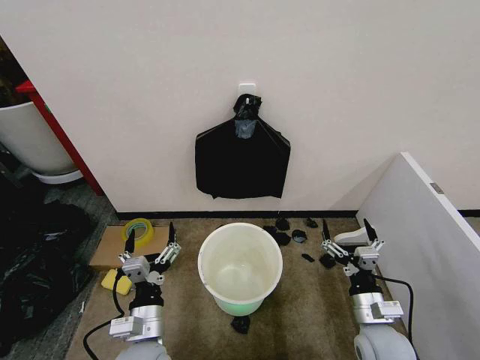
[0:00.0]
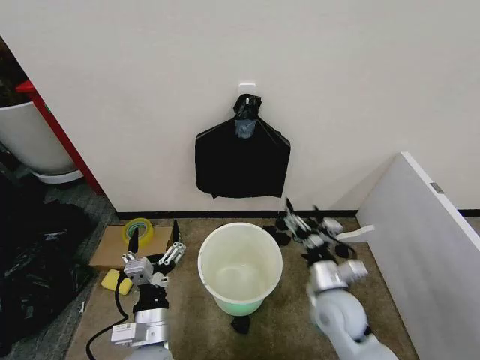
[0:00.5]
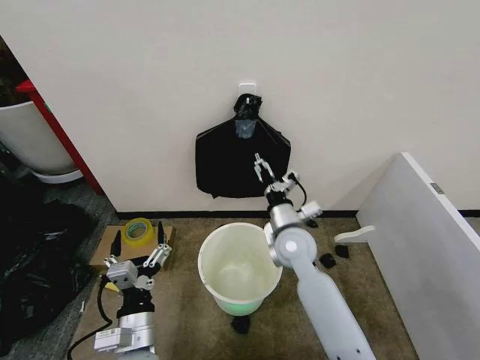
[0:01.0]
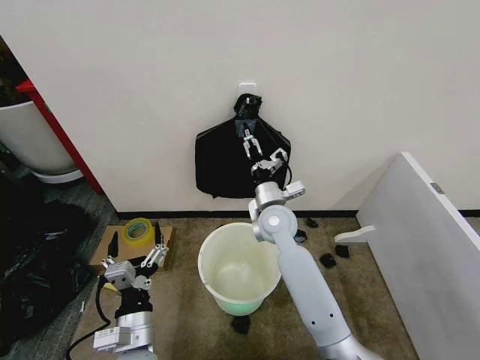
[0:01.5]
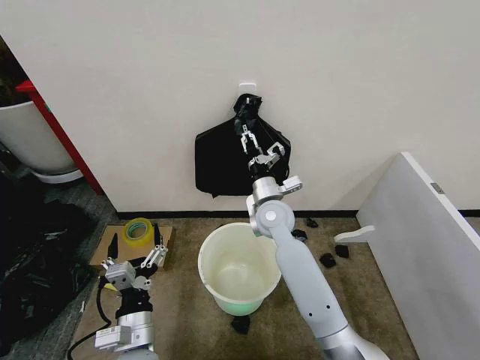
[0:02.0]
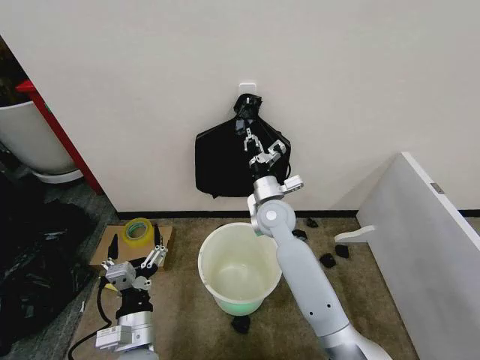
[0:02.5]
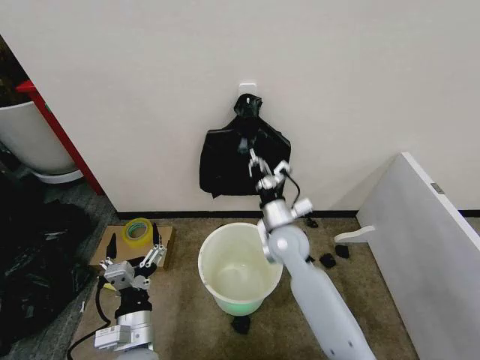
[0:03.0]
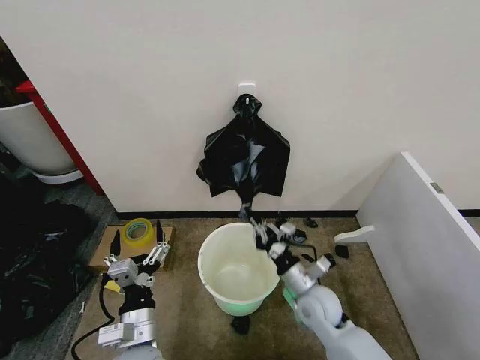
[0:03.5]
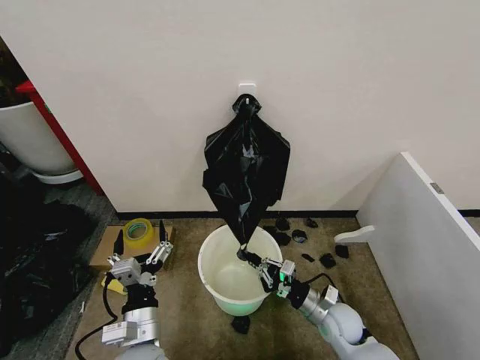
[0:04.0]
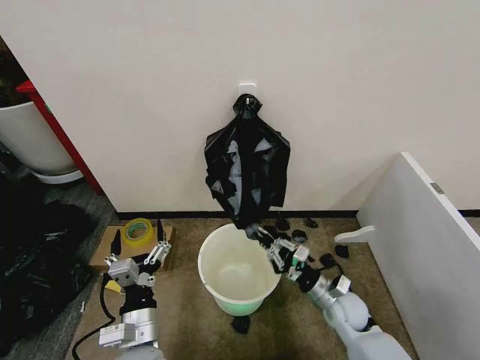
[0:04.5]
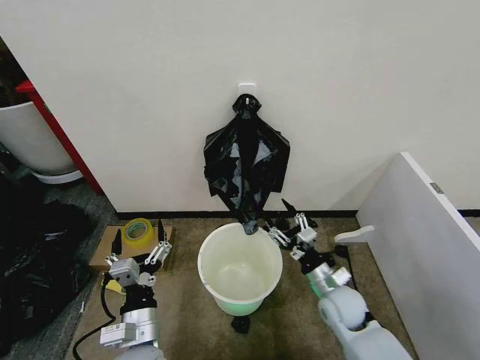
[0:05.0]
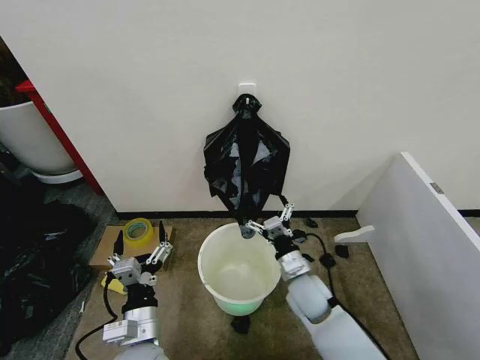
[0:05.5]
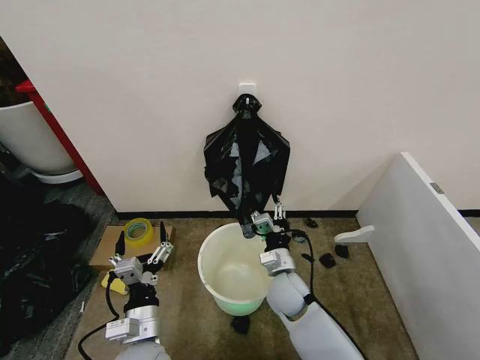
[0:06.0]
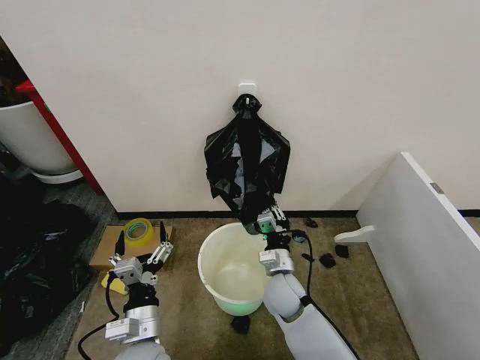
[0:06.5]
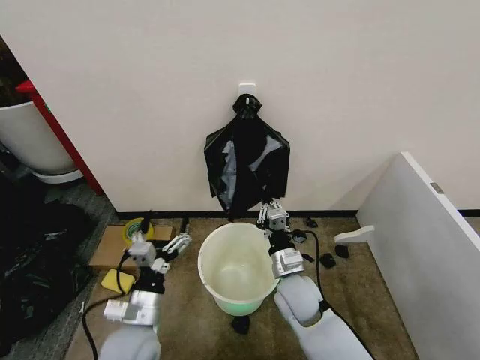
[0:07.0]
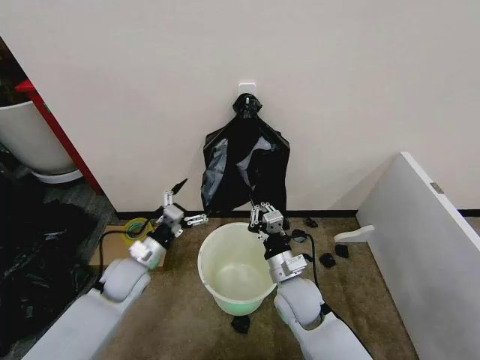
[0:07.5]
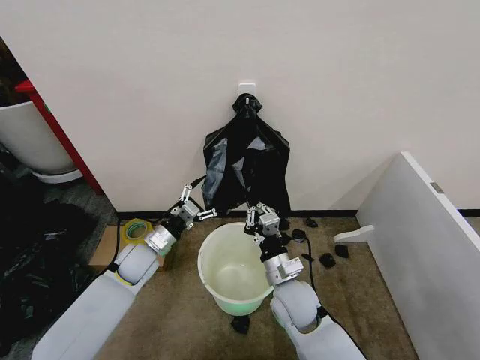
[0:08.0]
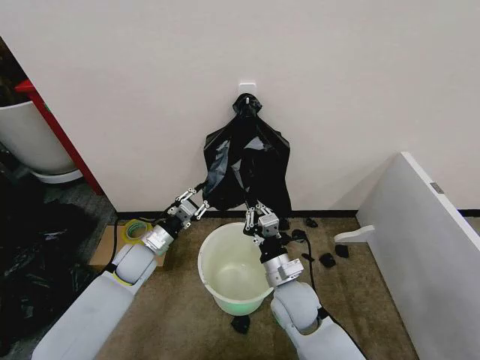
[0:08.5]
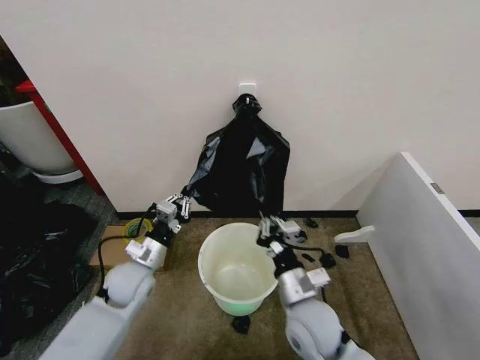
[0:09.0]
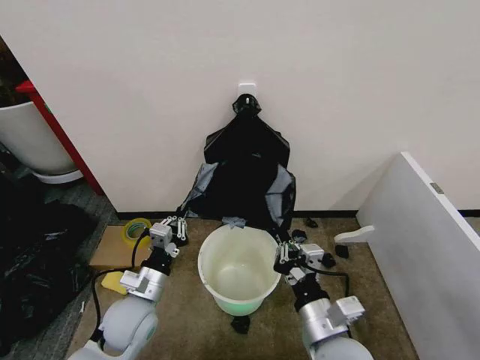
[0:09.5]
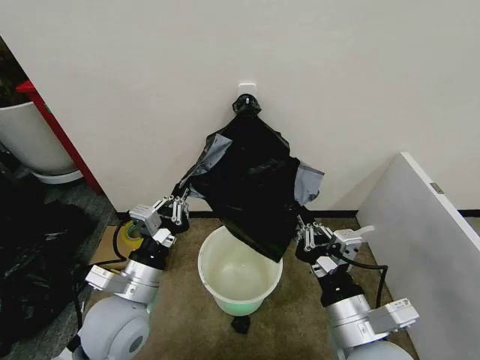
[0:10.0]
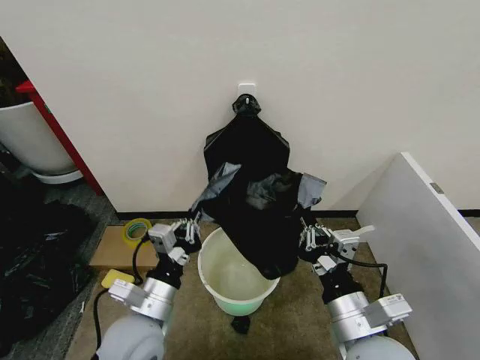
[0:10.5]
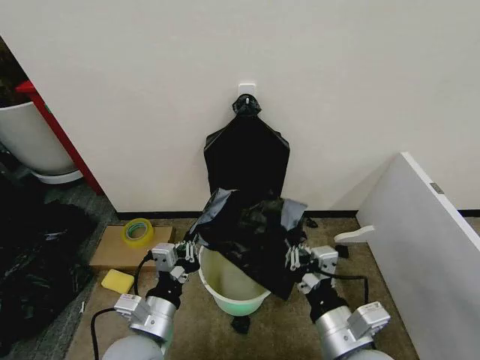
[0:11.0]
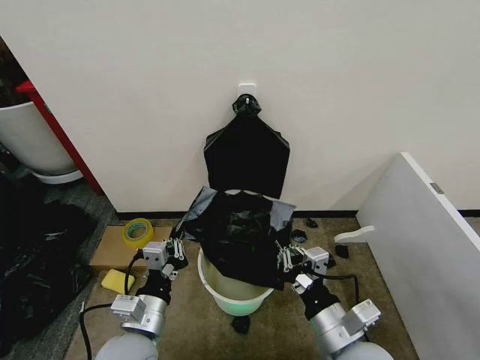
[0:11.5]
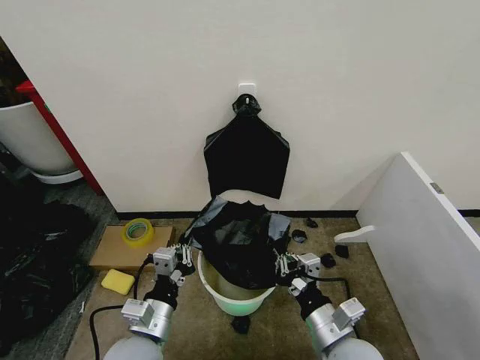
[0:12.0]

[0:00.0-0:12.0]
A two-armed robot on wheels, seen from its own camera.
Task of the whole recording: Place the garbage bag over the trash bin.
0:02.0 to 0:04.0: The right gripper shifts roughly 30 cm downward, backward and to the right, and closes.
0:04.0 to 0:06.0: The right gripper is displaced to the left, upward and forward by about 15 cm, and opens up.
0:06.0 to 0:08.0: The left gripper is displaced forward by approximately 20 cm; the right gripper ends up some 5 cm from where it was, and closes its fingers.
0:08.0 to 0:10.0: The right gripper shifts some 20 cm backward, upward and to the right. Meanwhile the left gripper is displaced backward and upward by about 20 cm, and closes its fingers.
0:10.0 to 0:12.0: Both grippers travel together downward, some 10 cm.

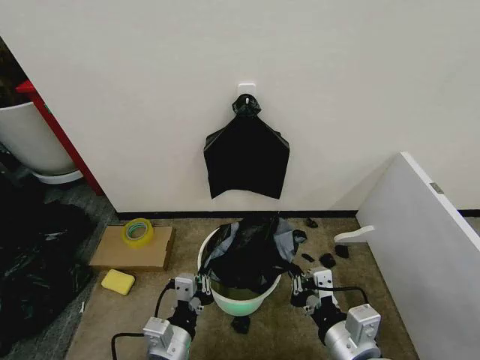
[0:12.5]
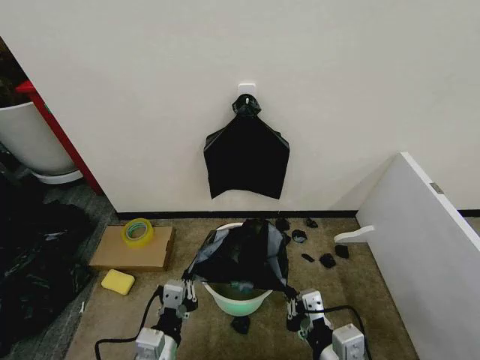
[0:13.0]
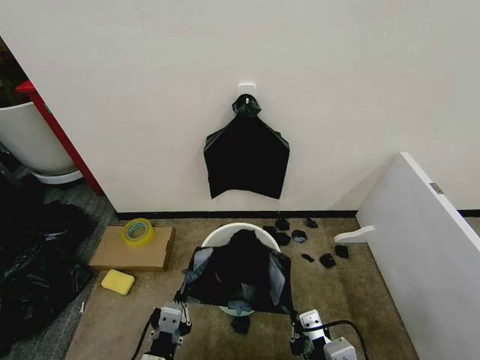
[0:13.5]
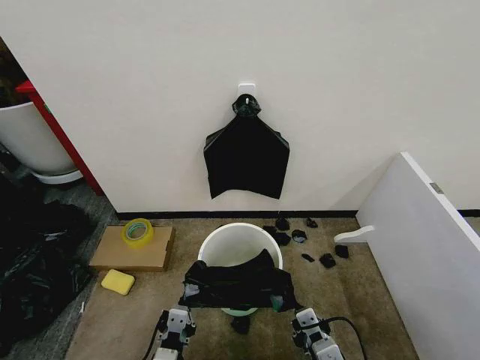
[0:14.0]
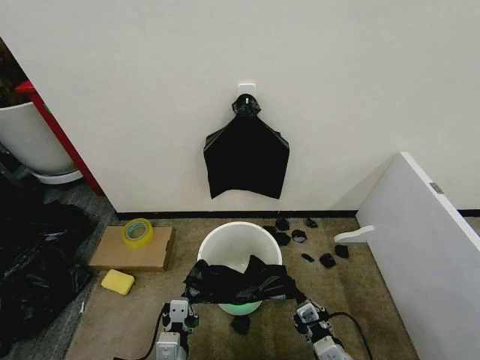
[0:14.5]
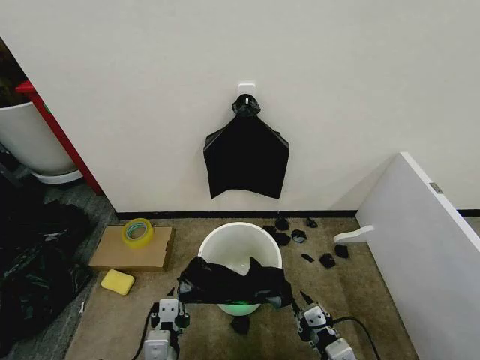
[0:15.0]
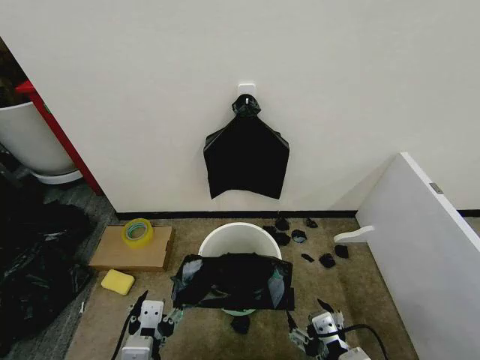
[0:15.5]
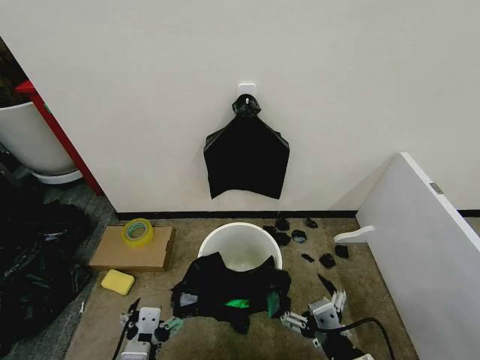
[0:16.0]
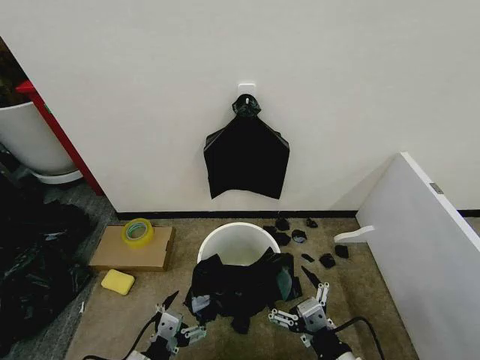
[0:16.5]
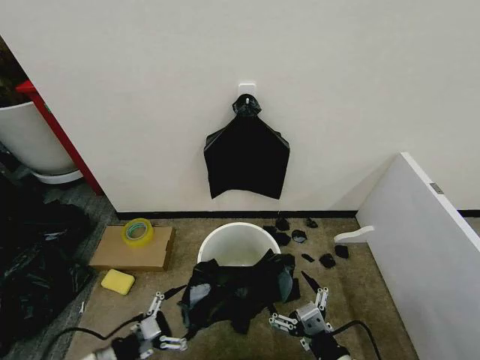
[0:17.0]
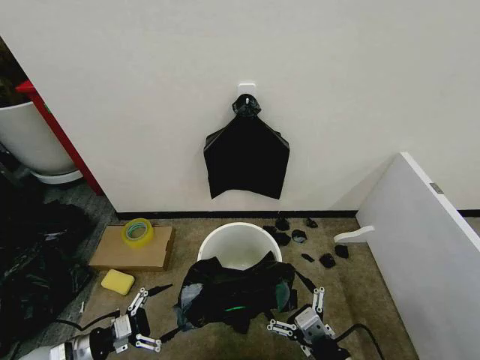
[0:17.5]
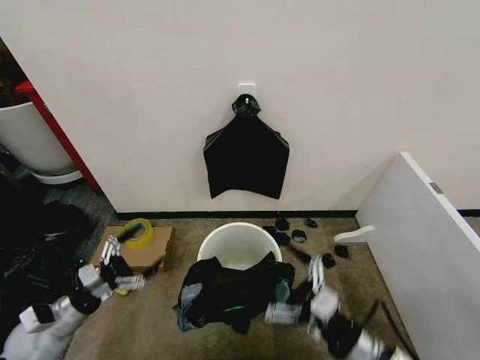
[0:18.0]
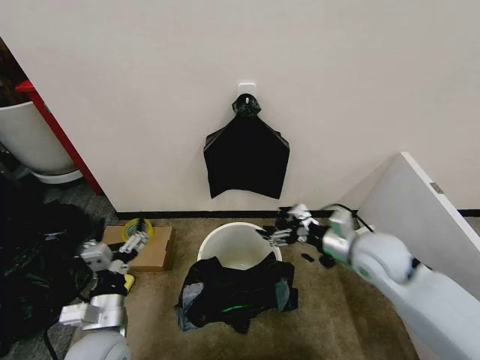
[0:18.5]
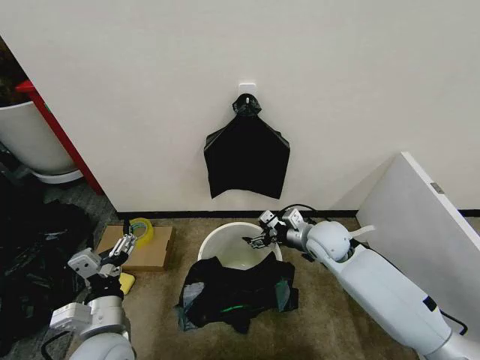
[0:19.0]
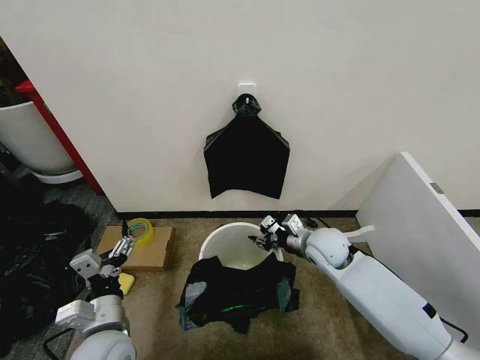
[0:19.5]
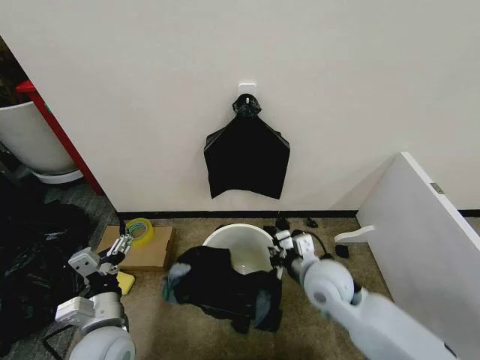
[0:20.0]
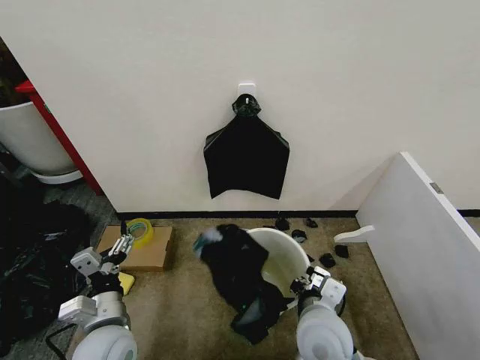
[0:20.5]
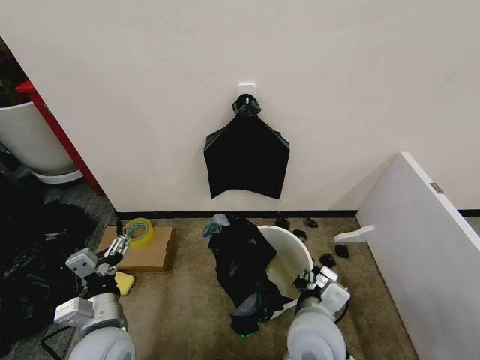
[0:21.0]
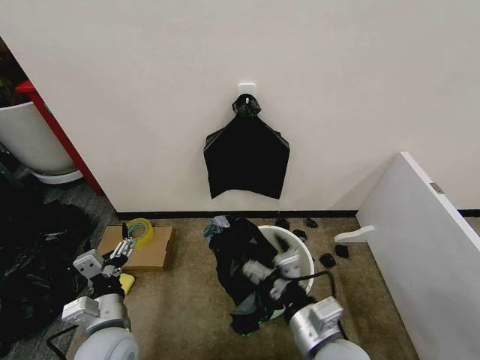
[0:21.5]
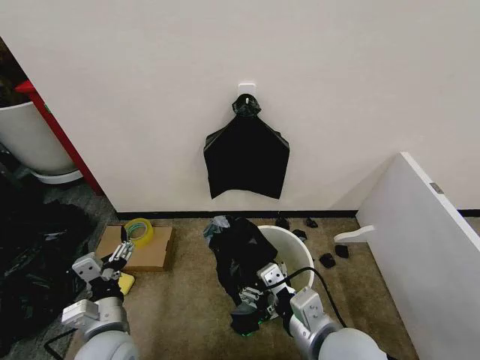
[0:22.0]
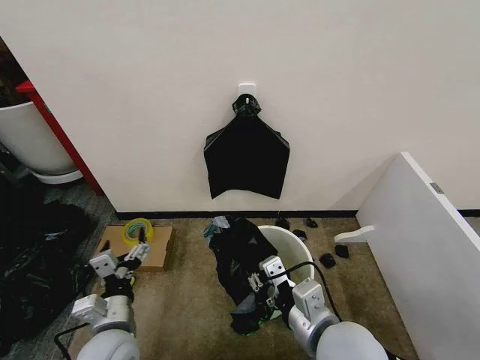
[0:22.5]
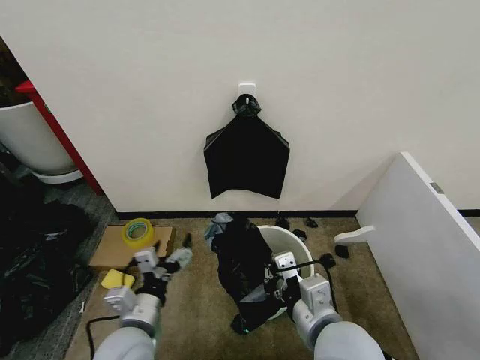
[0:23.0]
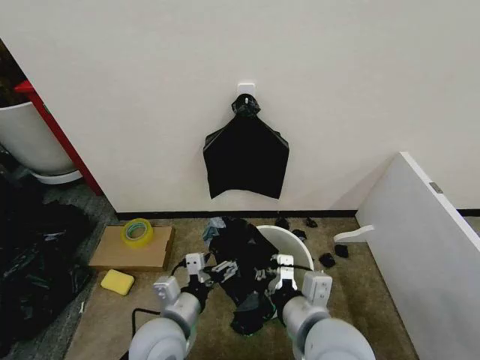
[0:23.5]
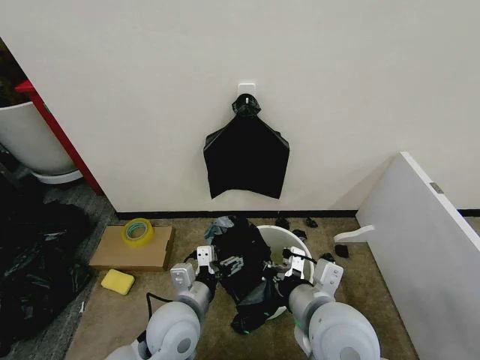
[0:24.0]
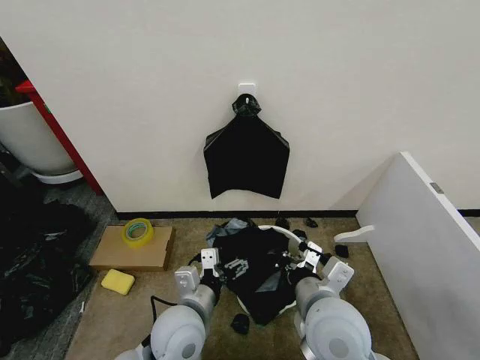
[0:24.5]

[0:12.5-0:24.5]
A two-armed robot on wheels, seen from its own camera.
Task of the whole recording: Place the garbage bag over the trash bin.
0:12.5 to 0:14.5: The right gripper moves downward, about 15 cm. The left gripper heads downward, covering approximately 5 cm.
0:14.5 to 0:16.5: The right gripper travels upward by about 10 cm, and opens up; the left gripper shifts roughly 5 cm to the left, travels upward and back again, about 10 cm each way, and opens up.
0:16.5 to 0:18.5: The right gripper is displaced forward by roughly 25 cm. The left gripper heads forward, covering approximately 10 cm, and goes to the left and returns, approximately 20 cm each way.
0:18.5 to 0:20.5: The right gripper travels backward, to the left and downward by some 20 cm, and closes its fingers.
0:20.5 to 0:22.5: The right gripper heads upward, covering approximately 10 cm, and opens and closes again.
0:22.5 to 0:24.5: The left gripper travels to the right by roughly 10 cm.

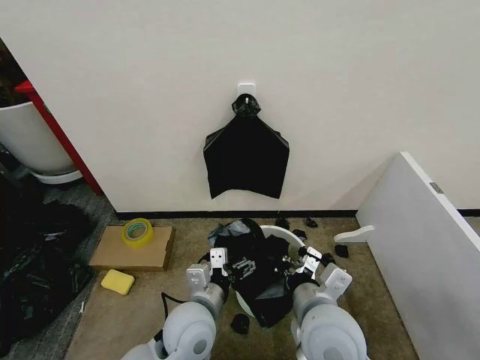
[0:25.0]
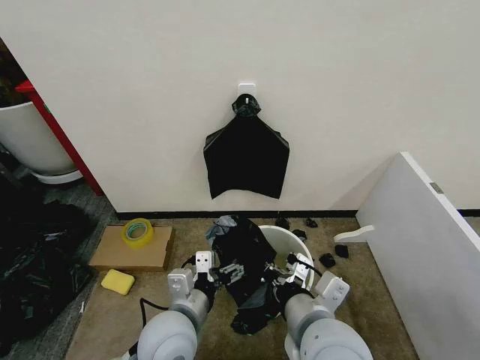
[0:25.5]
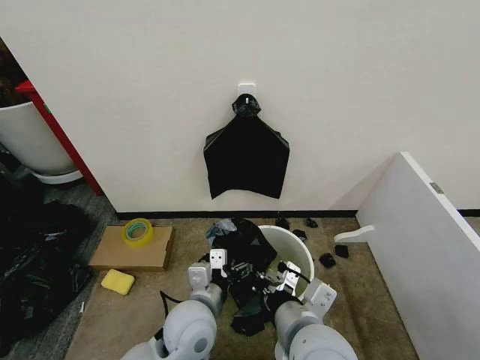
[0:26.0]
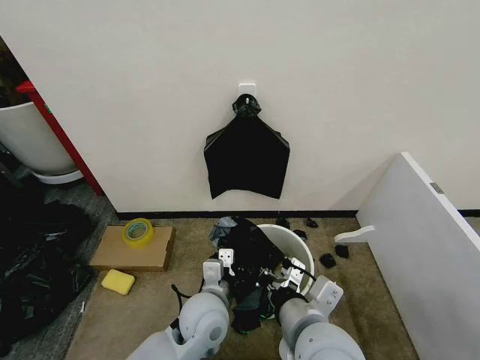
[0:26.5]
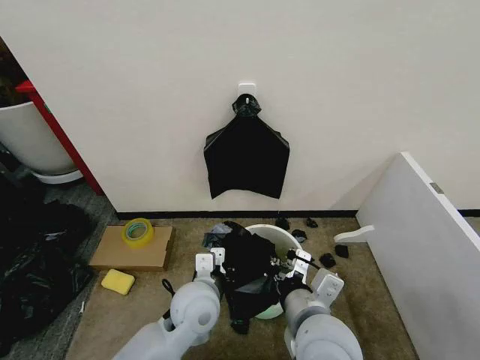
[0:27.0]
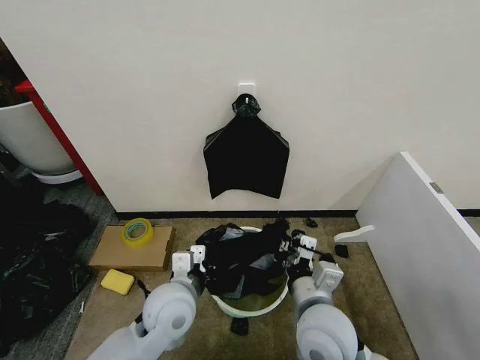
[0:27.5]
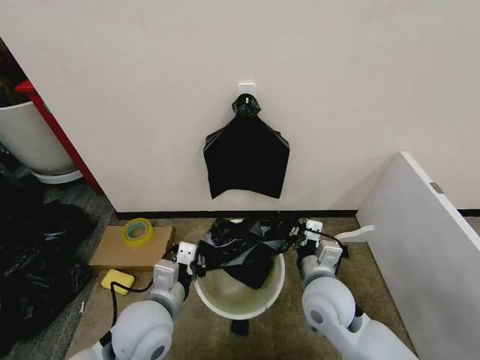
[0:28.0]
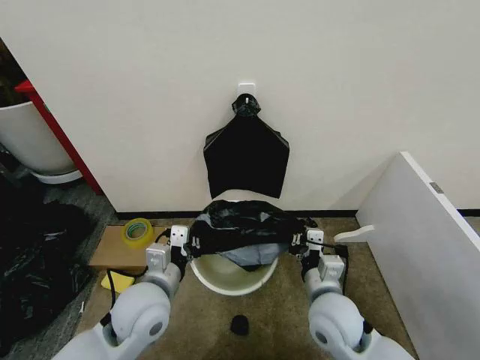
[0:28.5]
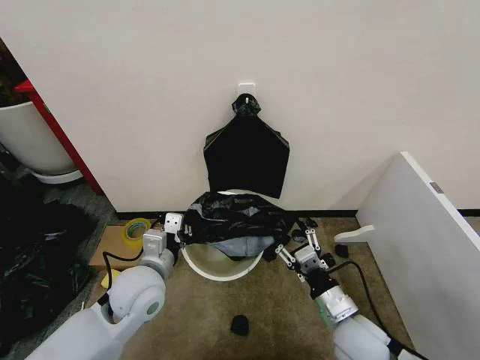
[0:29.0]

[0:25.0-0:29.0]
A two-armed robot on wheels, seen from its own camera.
Task of the whole recording: Place the garbage bag over the trash bin.
0:25.0 to 0:27.0: The left gripper closes its fingers.
0:27.0 to 0:29.0: The right gripper heads downward and to the right, covering roughly 15 cm, and opens. The left gripper heads to the left, covering approximately 10 cm.
